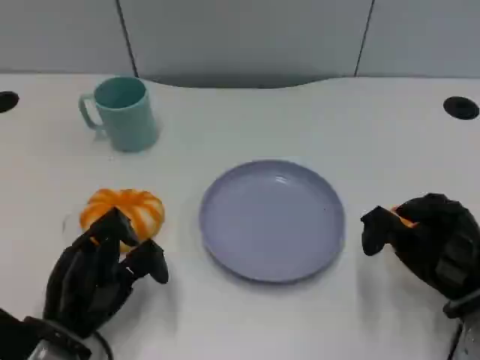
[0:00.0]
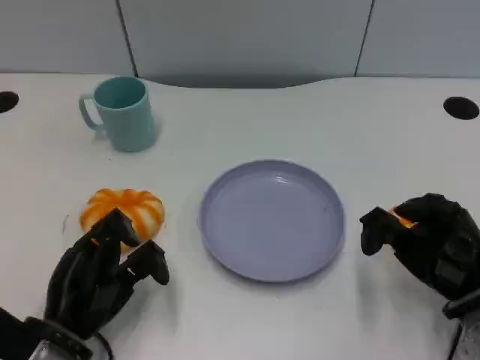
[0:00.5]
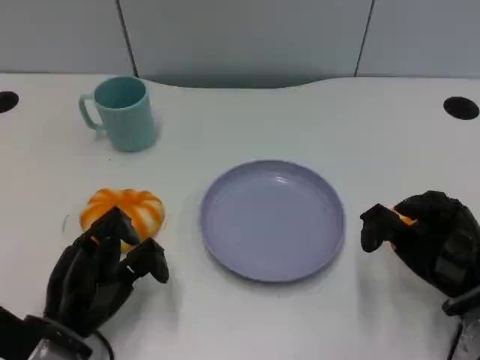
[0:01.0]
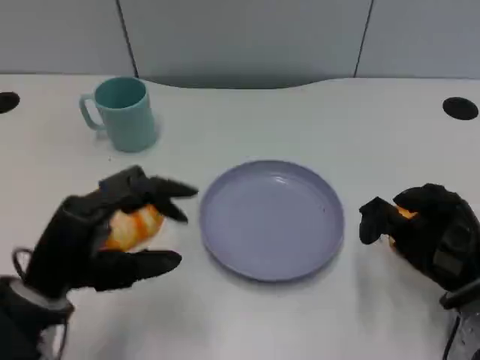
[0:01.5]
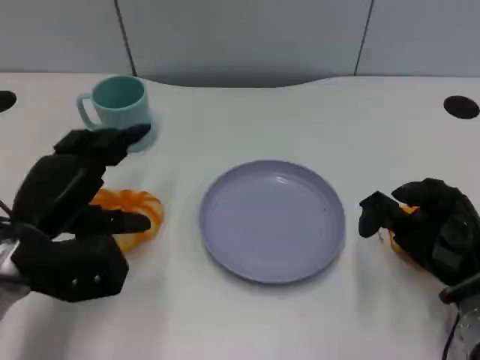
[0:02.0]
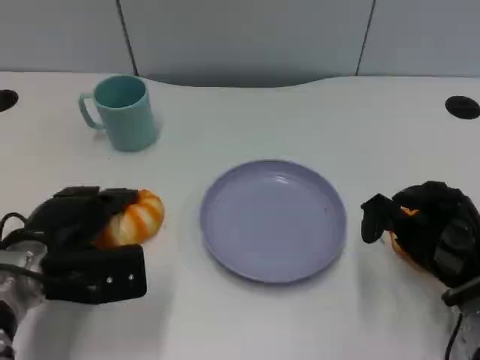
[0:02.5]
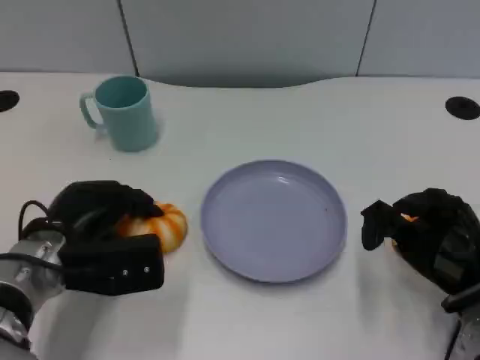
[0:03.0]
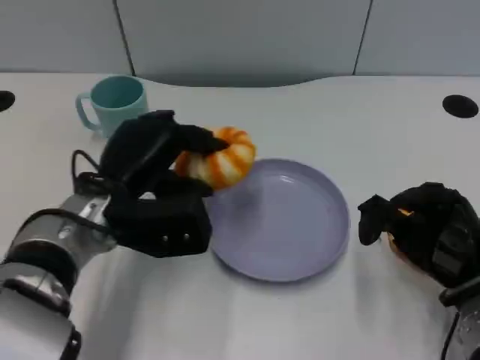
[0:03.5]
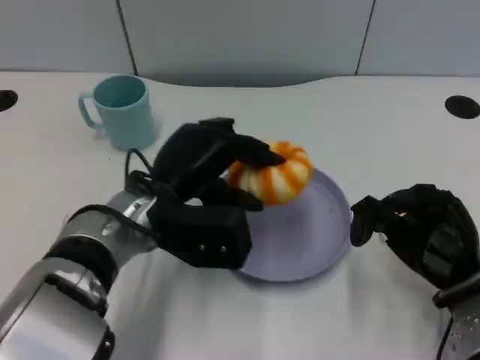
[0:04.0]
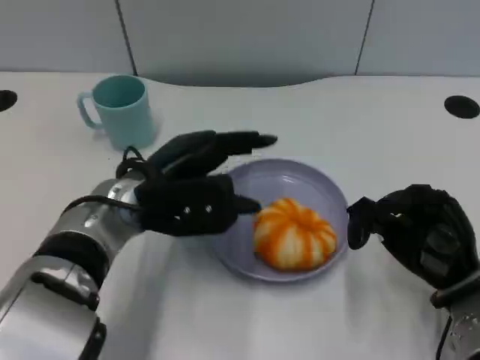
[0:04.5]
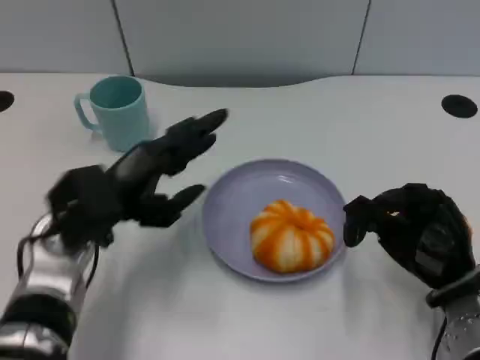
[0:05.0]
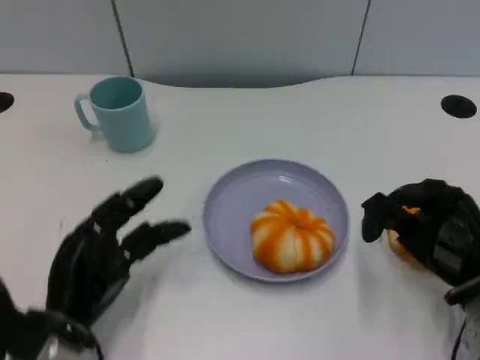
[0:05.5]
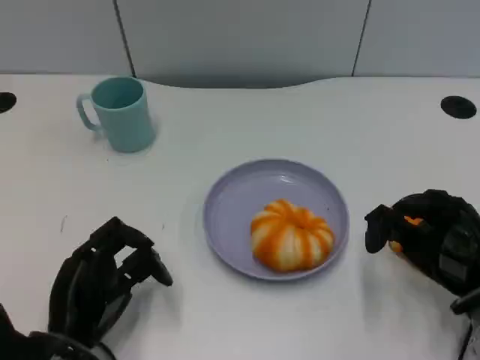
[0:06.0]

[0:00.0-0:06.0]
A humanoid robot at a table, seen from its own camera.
Task of the whole recording: Grasp the bread from the table and place it into the plate.
0:00.0 to 0:02.0: The left hand is displaced upward and forward by approximately 10 cm.
0:02.0 to 0:04.0: The left hand travels to the right by approximately 15 cm.
0:04.0 to 0:06.0: The left hand moves backward, to the left and downward, roughly 15 cm.

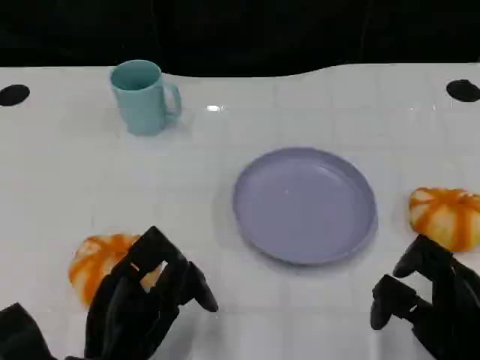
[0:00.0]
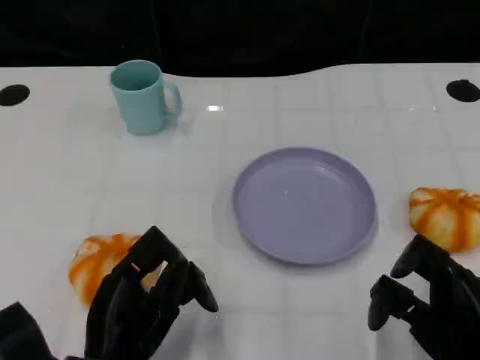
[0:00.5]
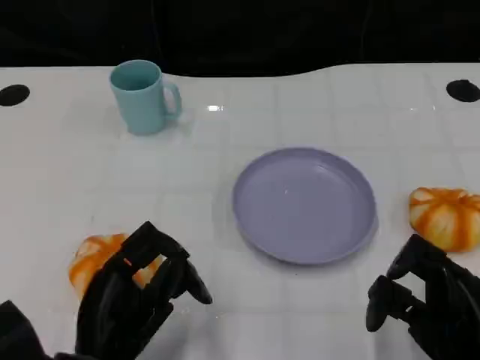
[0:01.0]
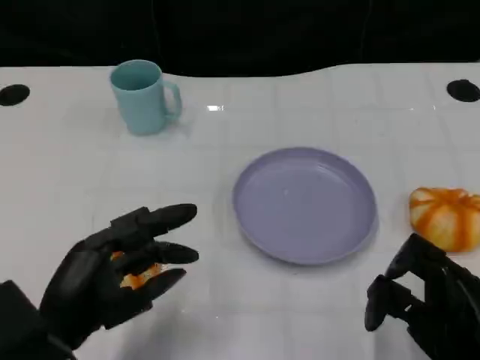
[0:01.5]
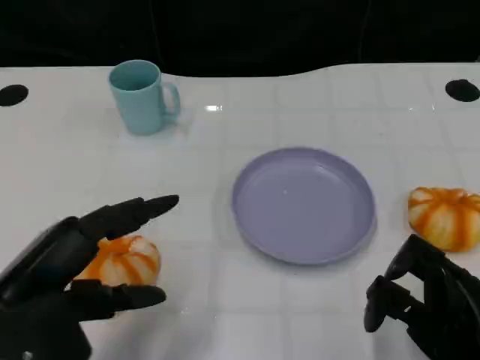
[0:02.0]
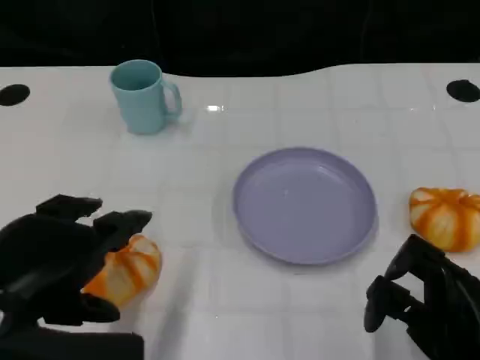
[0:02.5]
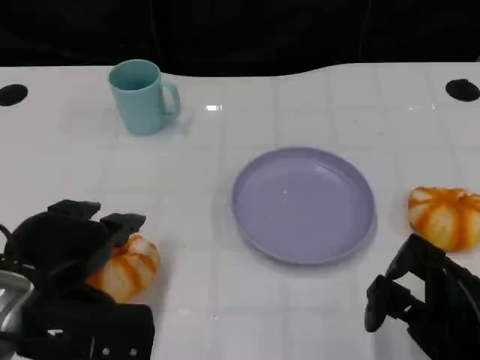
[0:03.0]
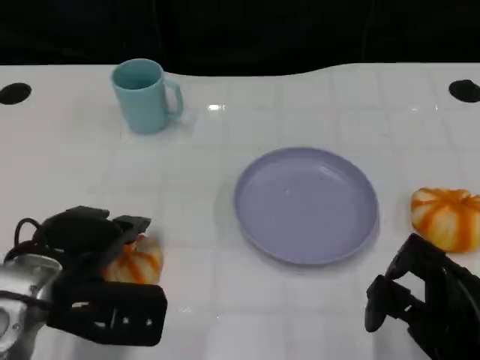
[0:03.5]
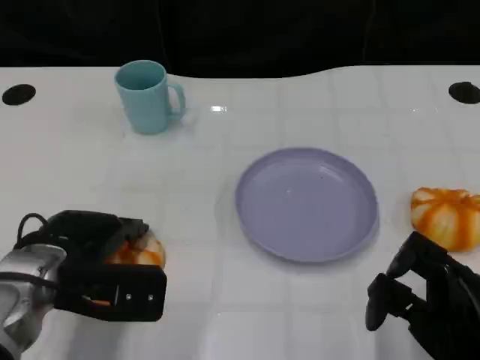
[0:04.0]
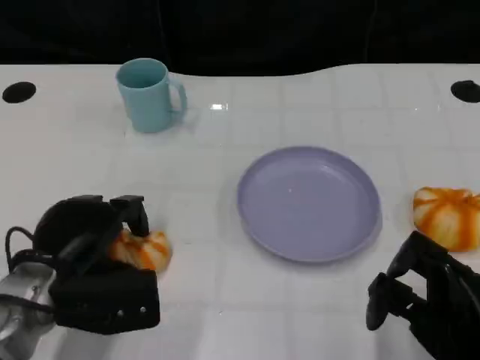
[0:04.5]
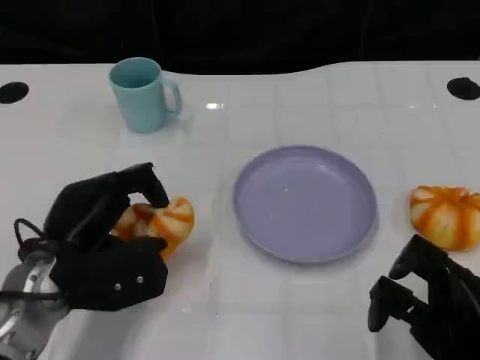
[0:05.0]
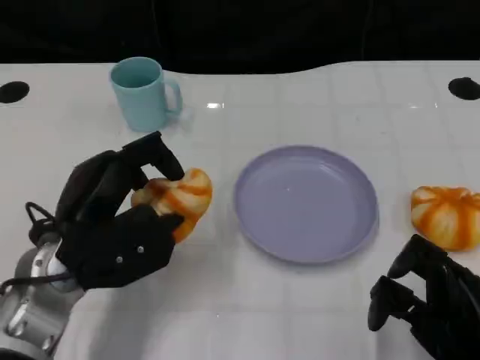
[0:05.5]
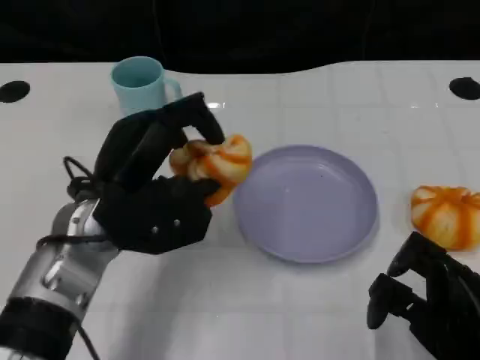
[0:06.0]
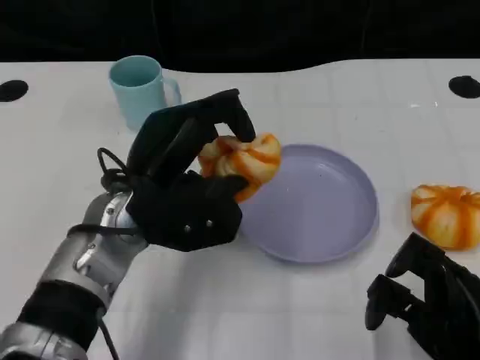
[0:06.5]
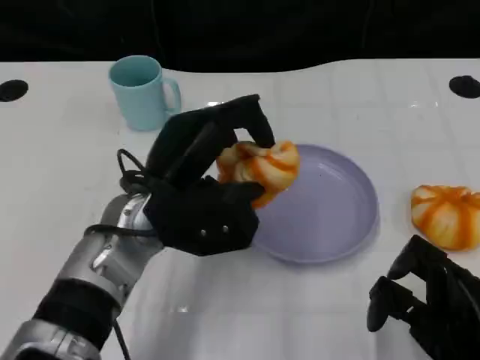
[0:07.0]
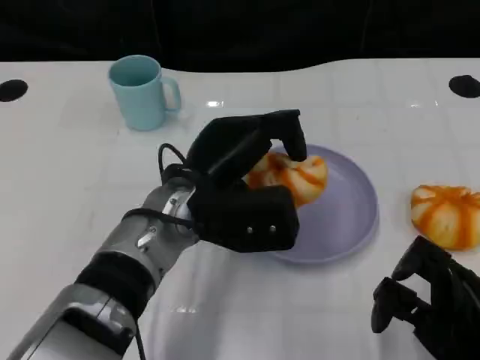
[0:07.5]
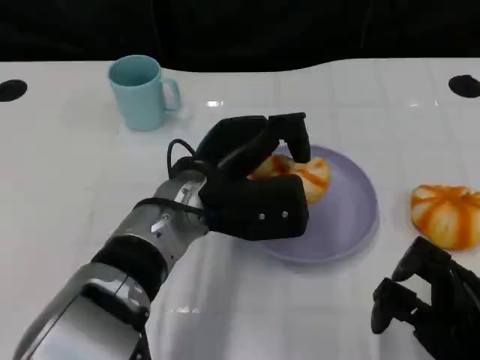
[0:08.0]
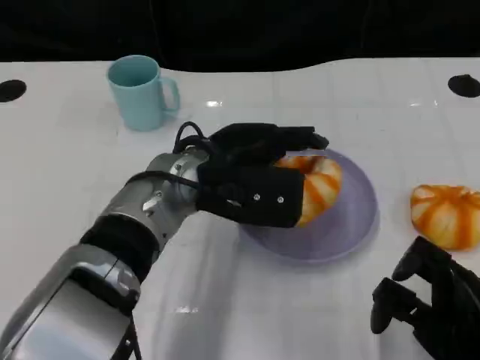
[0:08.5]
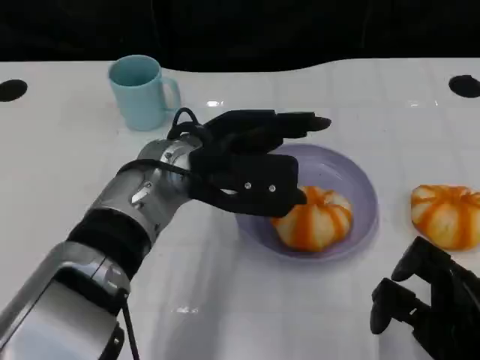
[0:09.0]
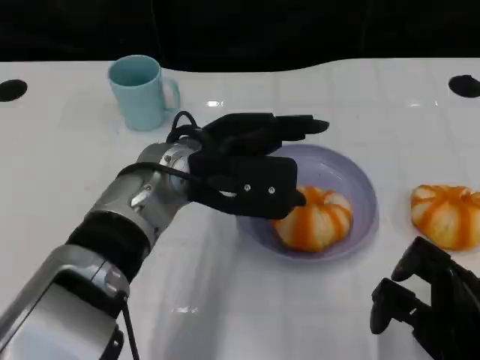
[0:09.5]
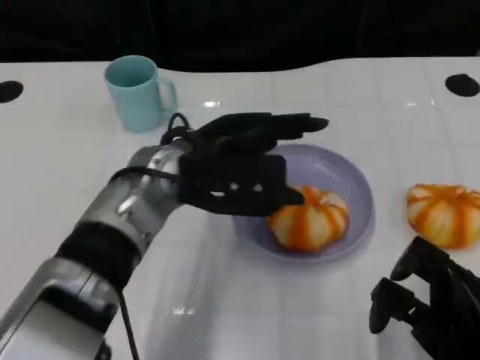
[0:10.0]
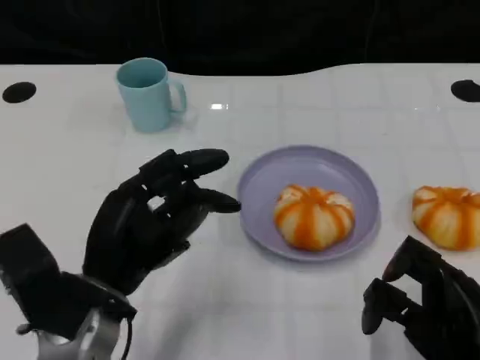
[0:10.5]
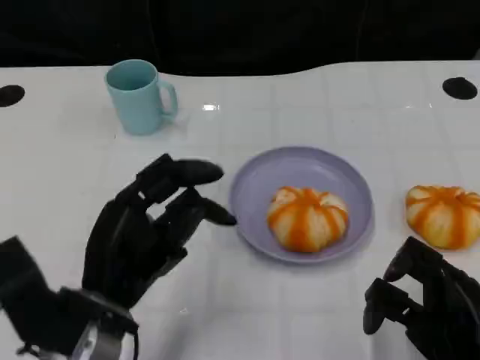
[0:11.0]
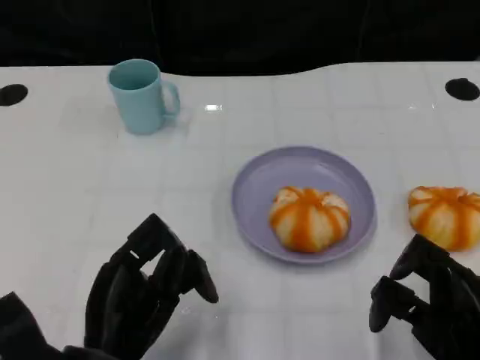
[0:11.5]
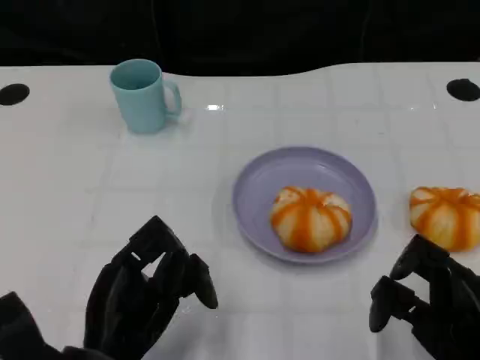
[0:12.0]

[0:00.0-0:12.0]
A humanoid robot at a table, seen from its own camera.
Task of the whole recording: Grasp the bread from the table and place it into the plate.
0:00.0 to 0:02.0: The left hand goes approximately 15 cm upward and to the left.
0:02.0 to 0:04.0: The left hand goes roughly 10 cm forward and downward.
0:04.0 to 0:06.0: The left hand shifts some 10 cm to the right and upward.
0:06.0 to 0:08.0: The left hand moves to the right, roughly 10 cm.
0:10.0 to 0:12.0: The left hand moves backward, downward and to the left, approximately 20 cm.

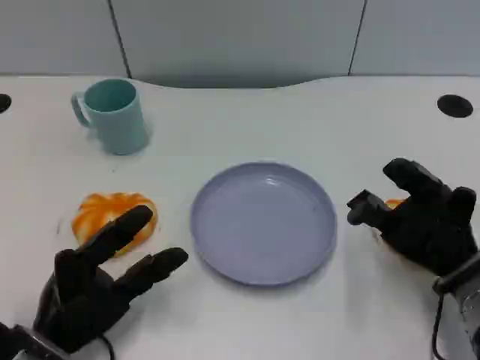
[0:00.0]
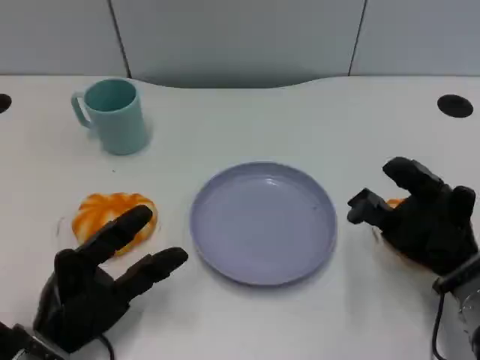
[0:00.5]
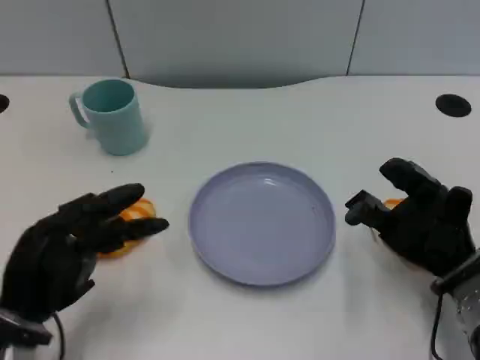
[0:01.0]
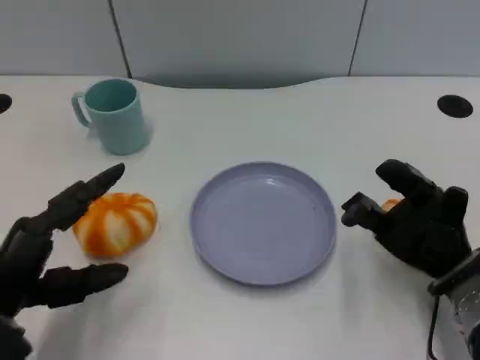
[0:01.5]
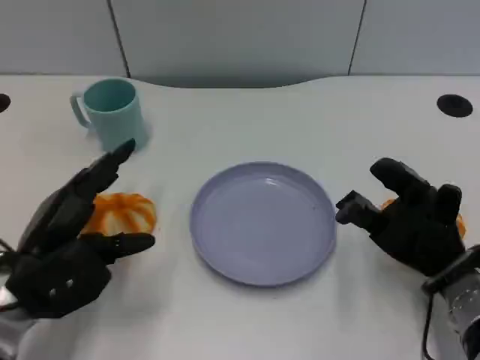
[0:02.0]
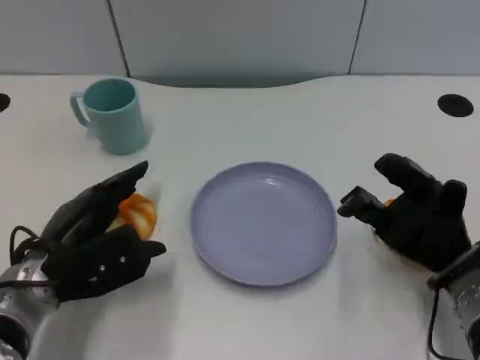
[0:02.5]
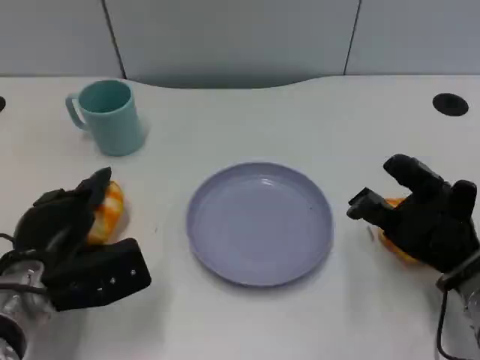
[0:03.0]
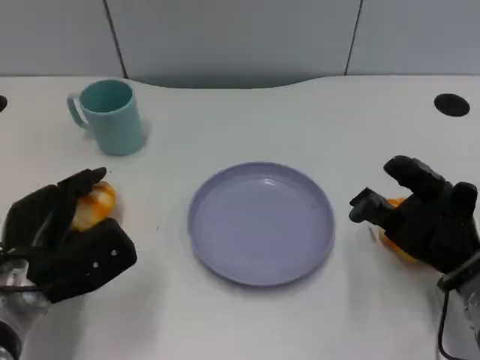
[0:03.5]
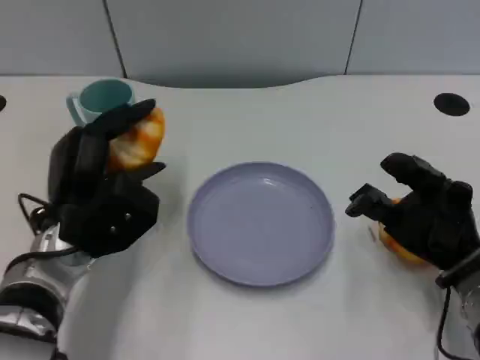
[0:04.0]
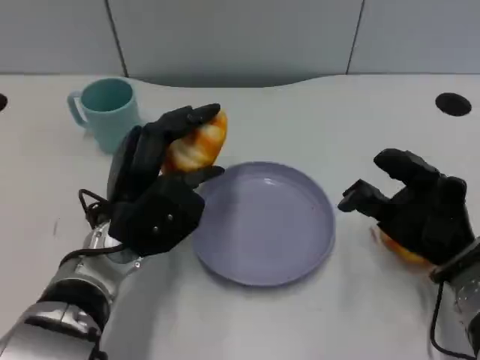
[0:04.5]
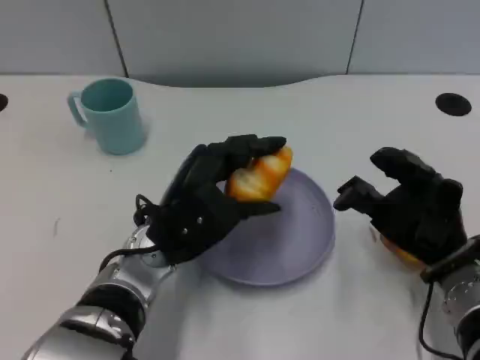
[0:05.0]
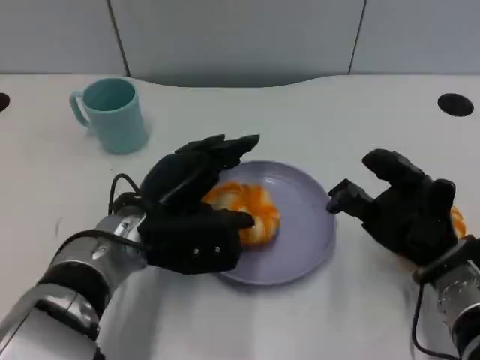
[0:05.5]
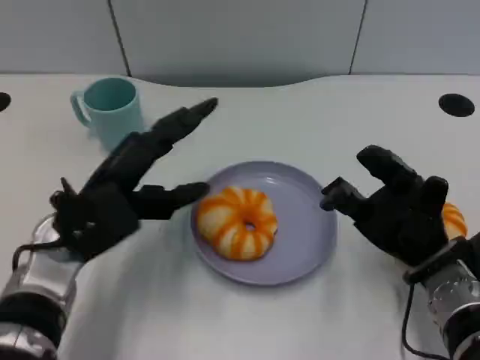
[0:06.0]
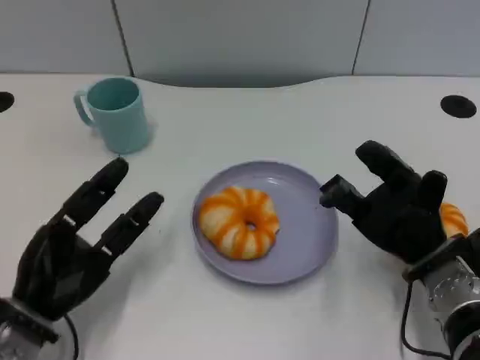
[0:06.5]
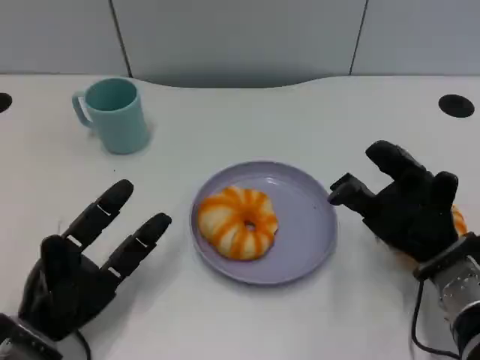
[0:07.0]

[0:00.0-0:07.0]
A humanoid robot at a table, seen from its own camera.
Task of the whole recording: Grasp the bread from the table and place it into the plate.
0:00.0 to 0:02.0: The left hand heads upward and forward, covering approximately 10 cm.
0:03.5 to 0:05.0: The left hand travels to the right by approximately 15 cm.
0:05.0 to 0:07.0: The left hand heads to the left, backward and downward, covering some 15 cm.
